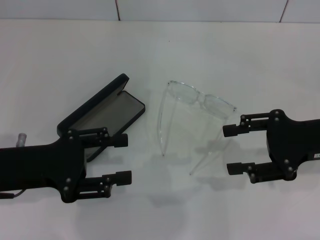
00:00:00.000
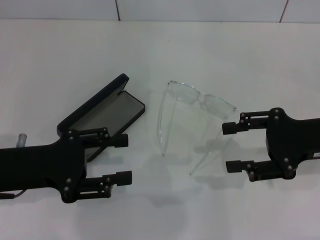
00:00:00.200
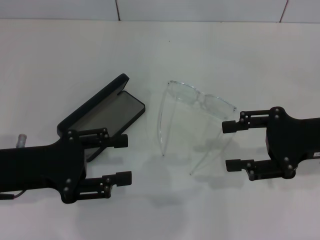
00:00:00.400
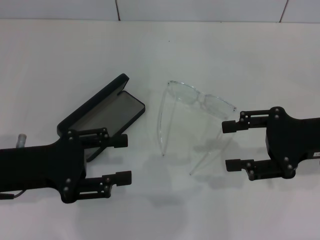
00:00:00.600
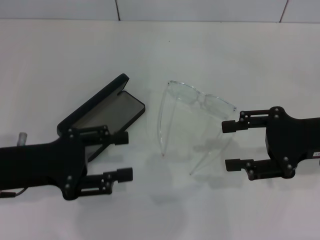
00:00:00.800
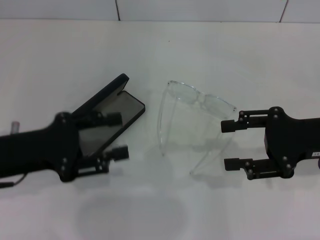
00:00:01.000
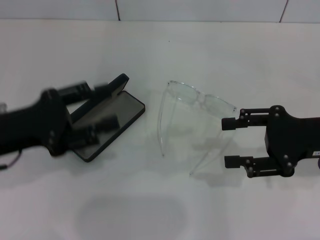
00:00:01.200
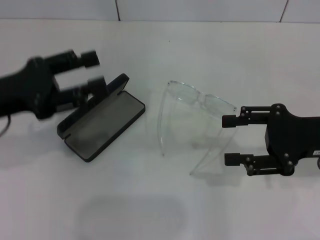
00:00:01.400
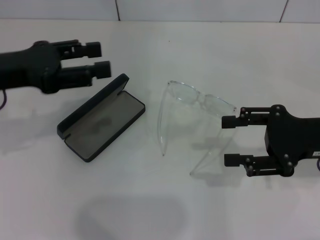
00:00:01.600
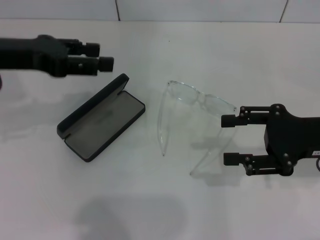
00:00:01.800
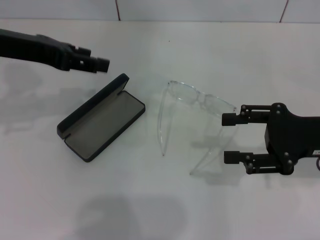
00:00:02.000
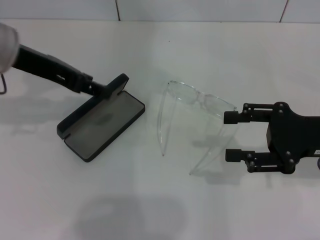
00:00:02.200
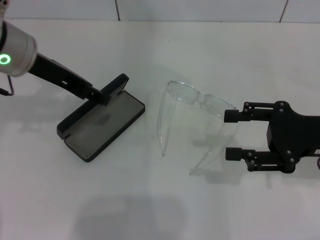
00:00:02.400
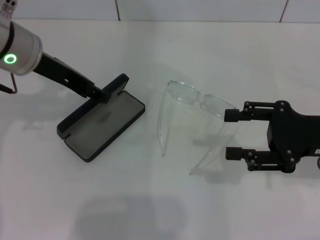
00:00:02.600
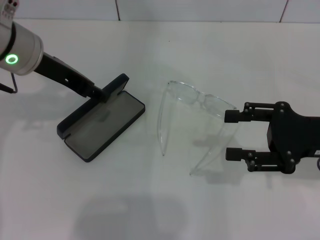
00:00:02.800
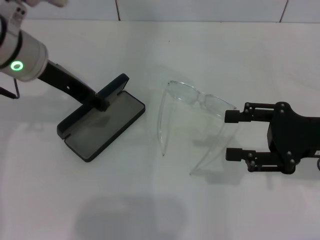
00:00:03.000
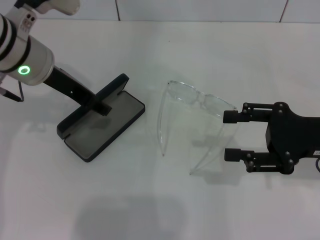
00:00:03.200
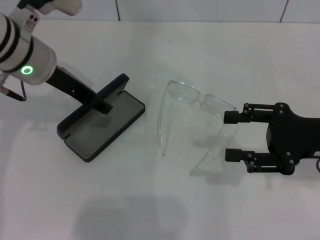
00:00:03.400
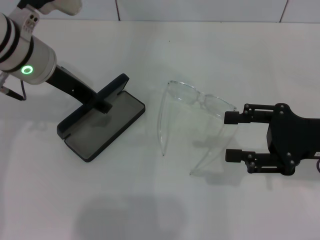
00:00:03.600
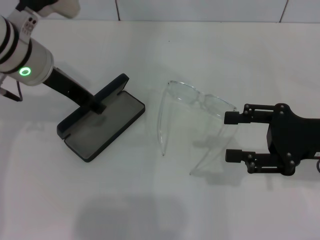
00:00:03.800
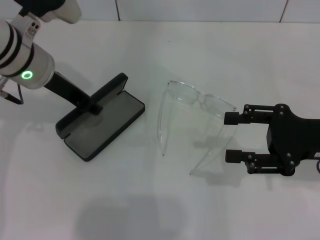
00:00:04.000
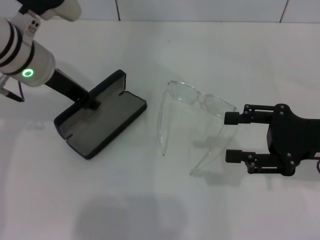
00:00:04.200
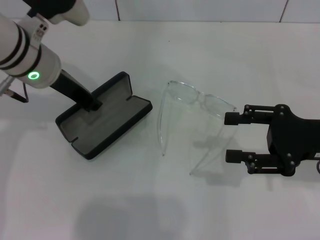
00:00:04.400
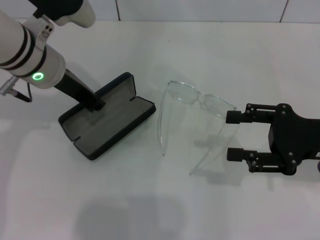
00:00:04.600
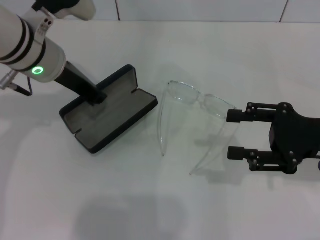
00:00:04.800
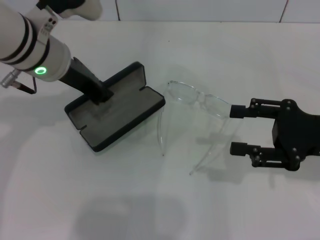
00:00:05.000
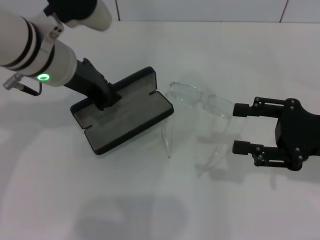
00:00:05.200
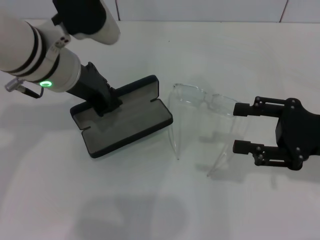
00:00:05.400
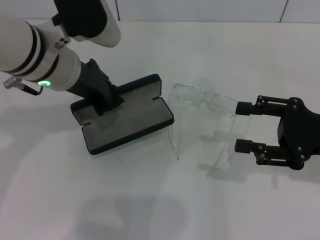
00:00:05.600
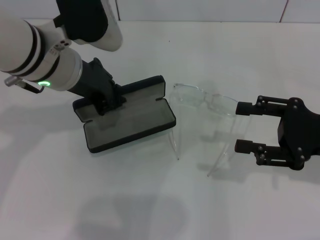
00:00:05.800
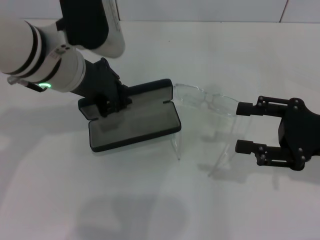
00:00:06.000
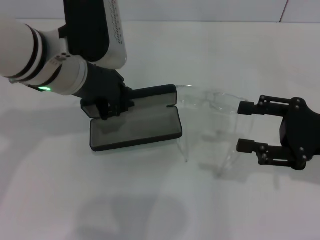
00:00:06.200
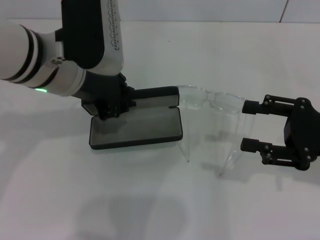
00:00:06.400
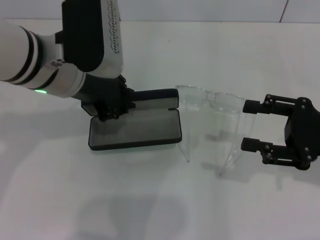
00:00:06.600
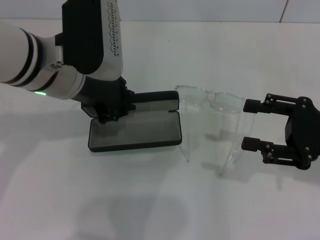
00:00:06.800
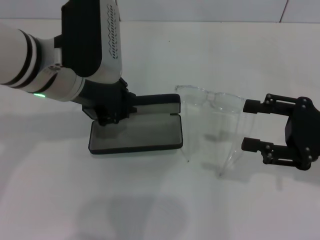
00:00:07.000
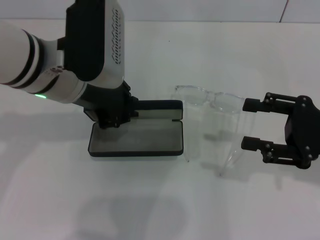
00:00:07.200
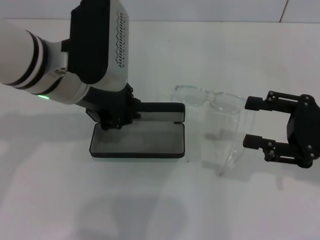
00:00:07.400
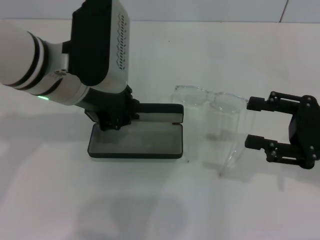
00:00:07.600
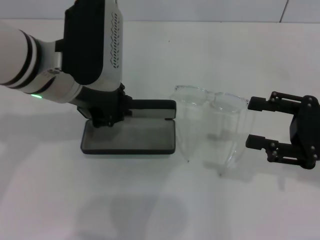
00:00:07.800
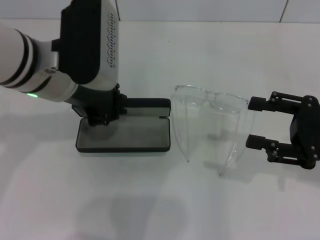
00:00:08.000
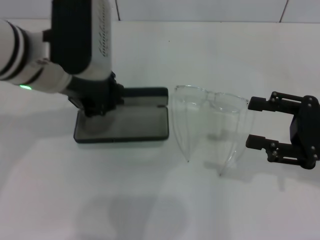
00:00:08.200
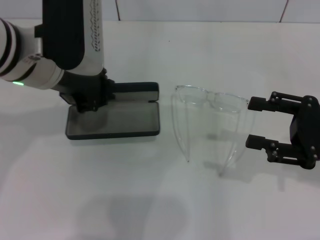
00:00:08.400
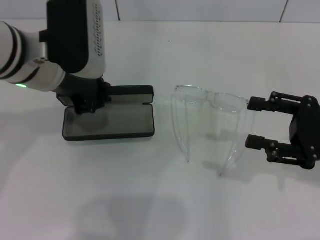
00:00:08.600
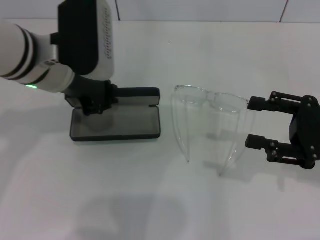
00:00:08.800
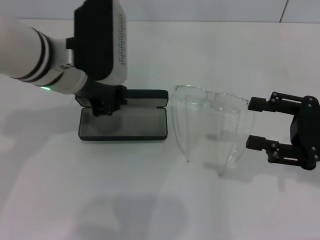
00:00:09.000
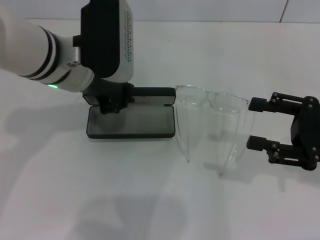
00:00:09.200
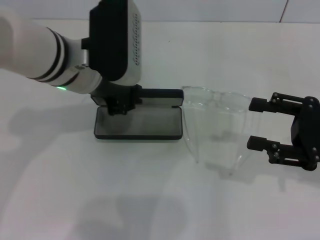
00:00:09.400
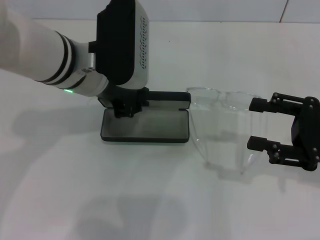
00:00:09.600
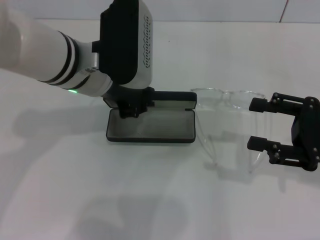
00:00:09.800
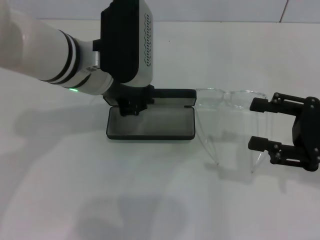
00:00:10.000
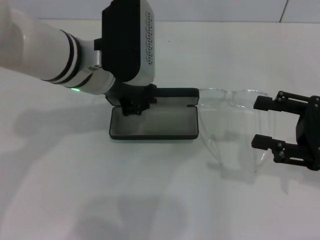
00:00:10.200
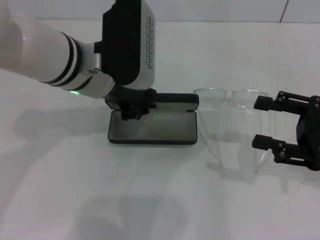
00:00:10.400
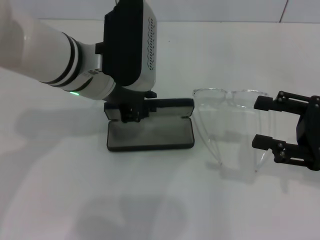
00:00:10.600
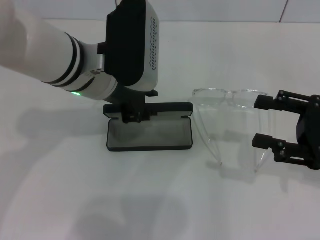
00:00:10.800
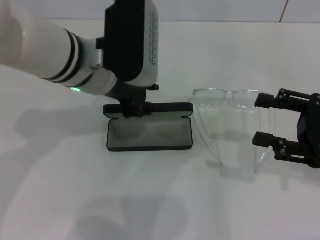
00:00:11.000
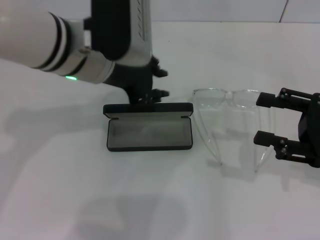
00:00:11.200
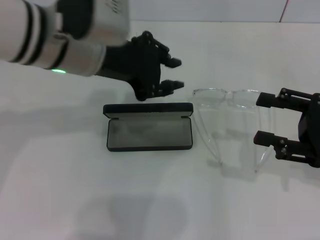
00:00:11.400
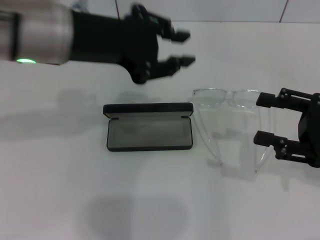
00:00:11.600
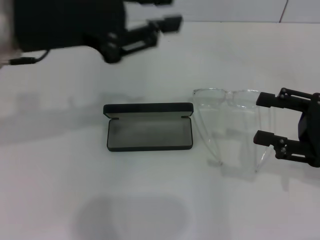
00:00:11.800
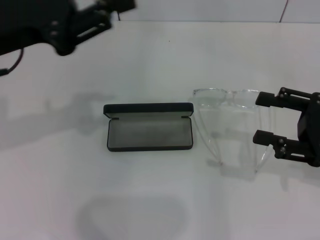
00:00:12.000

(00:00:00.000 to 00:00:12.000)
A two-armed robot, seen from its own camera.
Step, 00:00:00.000 - 00:00:04.400: Grab the glasses case with your left hand.
Step, 00:00:04.600 - 00:00:10.600: Place the glasses case in the center of the table with your left hand.
00:00:00.000 - 00:00:01.600: The left gripper is displaced upward and forward by about 10 cm.
00:00:01.600 - 00:00:03.000: The left gripper travels to the right and forward by approximately 10 cm.
00:00:03.000 - 00:00:04.400: The left gripper closes.
00:00:04.400 - 00:00:06.000: The left gripper changes place by some 5 cm.
00:00:06.000 - 00:00:10.400: The grippers stay close to where they were, moving slightly.
00:00:10.400 - 00:00:12.000: The left gripper moves to the left, some 15 cm.

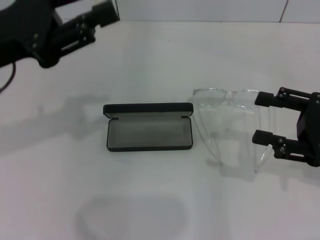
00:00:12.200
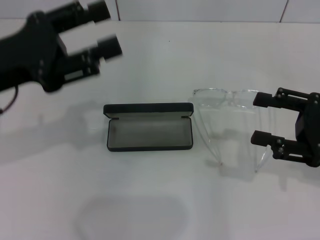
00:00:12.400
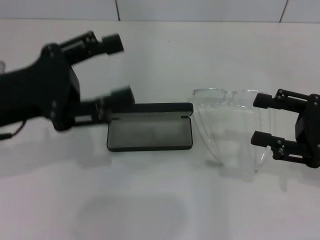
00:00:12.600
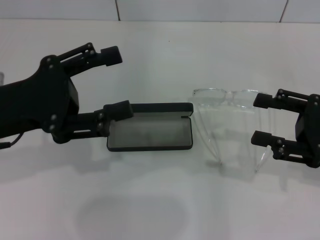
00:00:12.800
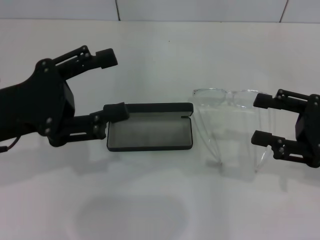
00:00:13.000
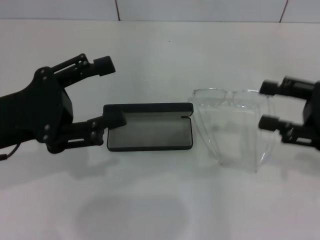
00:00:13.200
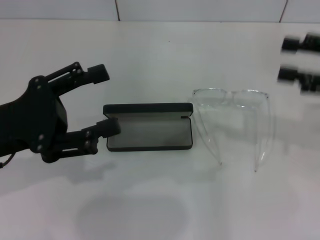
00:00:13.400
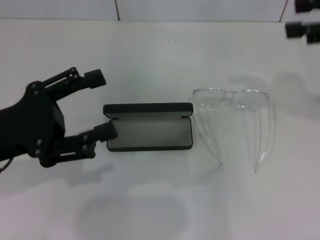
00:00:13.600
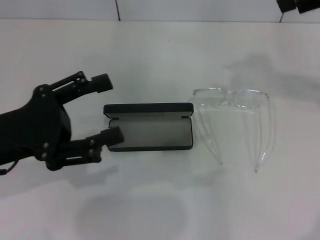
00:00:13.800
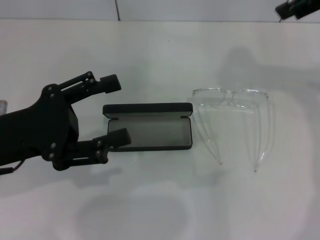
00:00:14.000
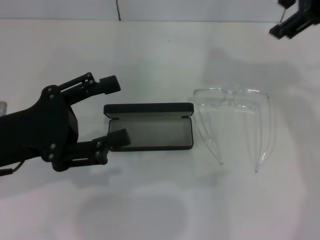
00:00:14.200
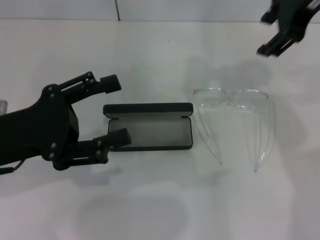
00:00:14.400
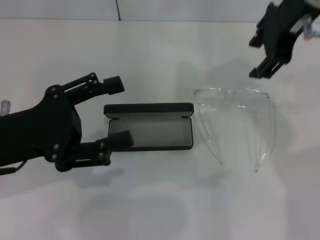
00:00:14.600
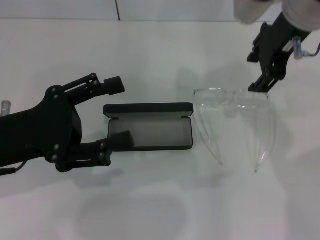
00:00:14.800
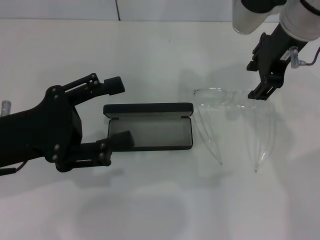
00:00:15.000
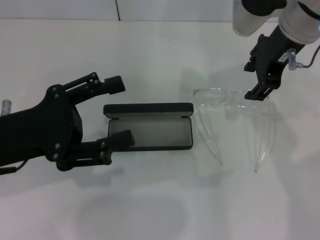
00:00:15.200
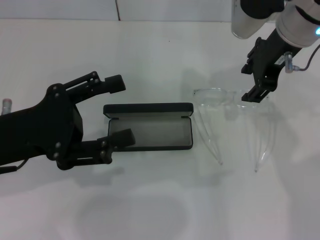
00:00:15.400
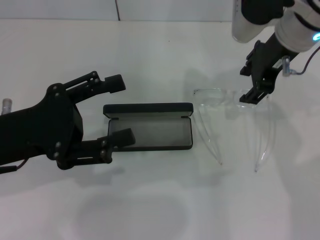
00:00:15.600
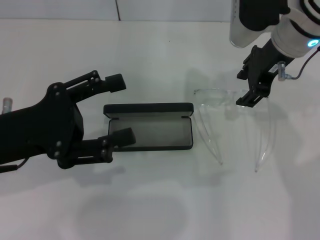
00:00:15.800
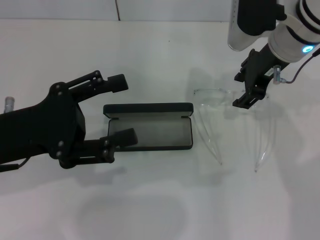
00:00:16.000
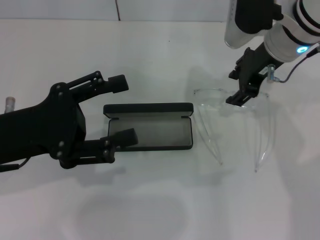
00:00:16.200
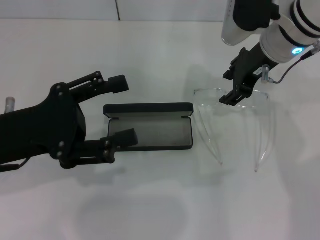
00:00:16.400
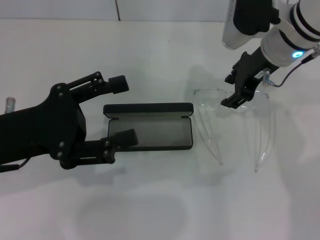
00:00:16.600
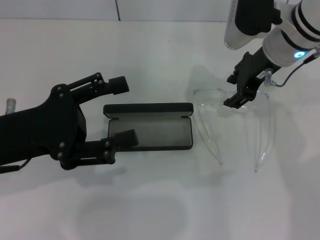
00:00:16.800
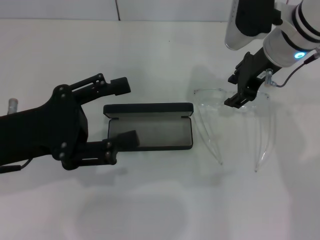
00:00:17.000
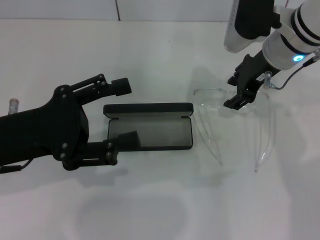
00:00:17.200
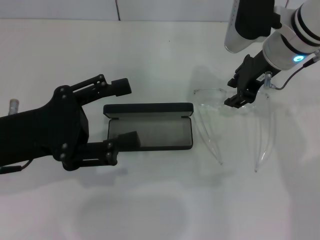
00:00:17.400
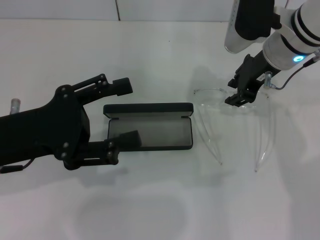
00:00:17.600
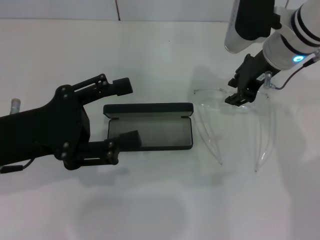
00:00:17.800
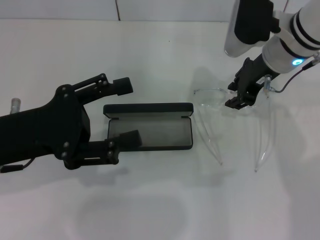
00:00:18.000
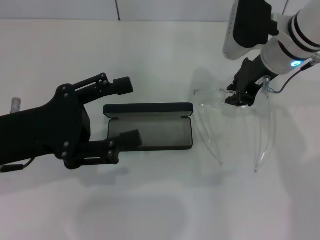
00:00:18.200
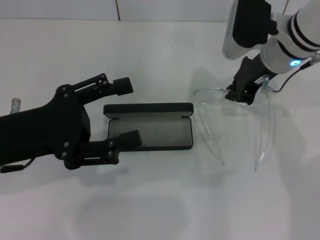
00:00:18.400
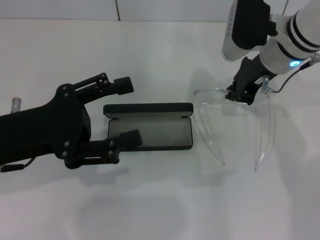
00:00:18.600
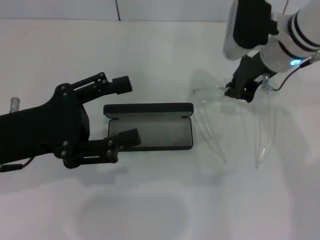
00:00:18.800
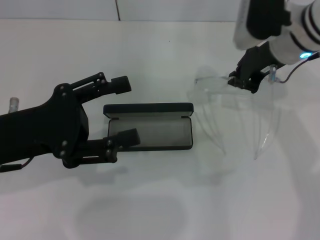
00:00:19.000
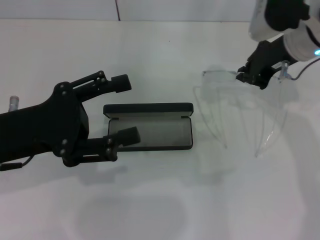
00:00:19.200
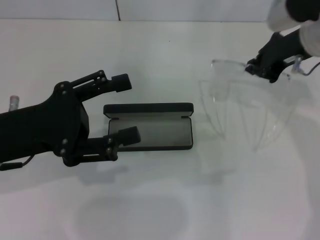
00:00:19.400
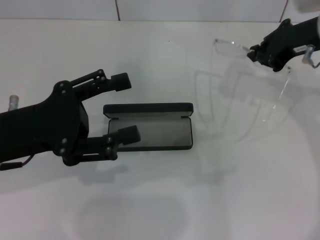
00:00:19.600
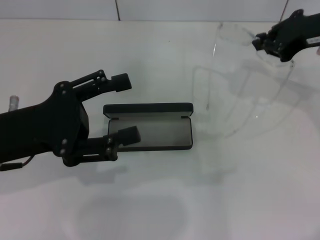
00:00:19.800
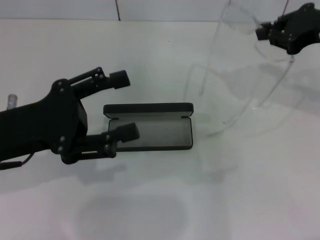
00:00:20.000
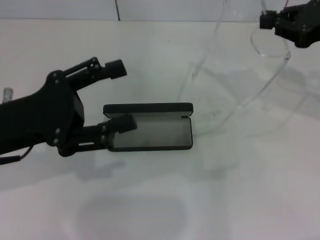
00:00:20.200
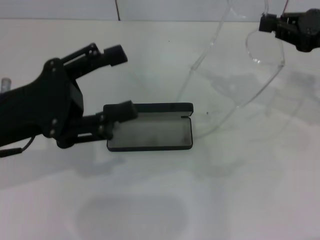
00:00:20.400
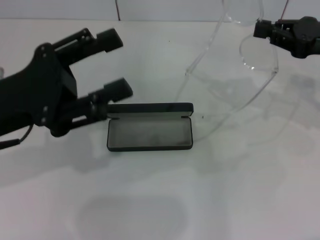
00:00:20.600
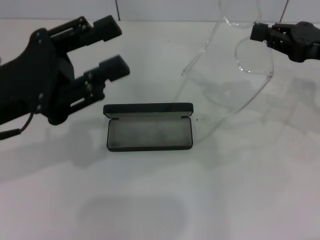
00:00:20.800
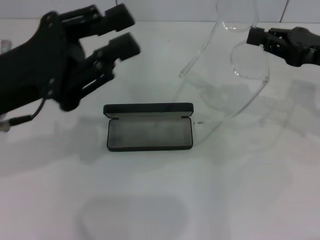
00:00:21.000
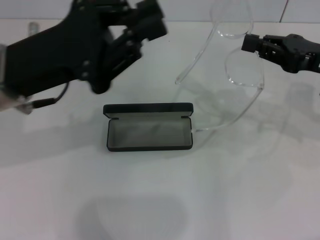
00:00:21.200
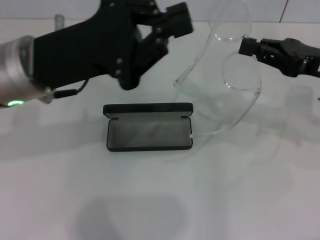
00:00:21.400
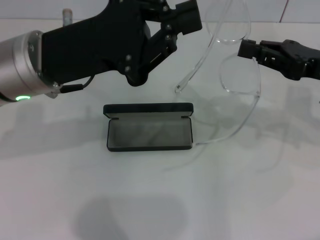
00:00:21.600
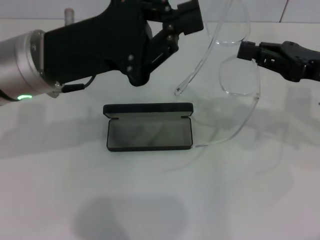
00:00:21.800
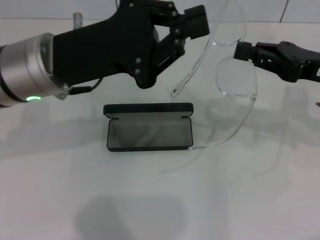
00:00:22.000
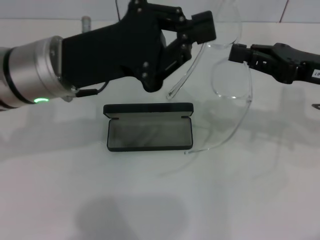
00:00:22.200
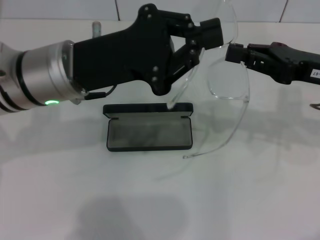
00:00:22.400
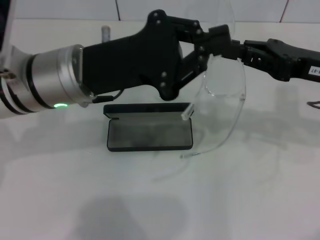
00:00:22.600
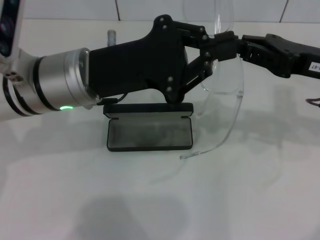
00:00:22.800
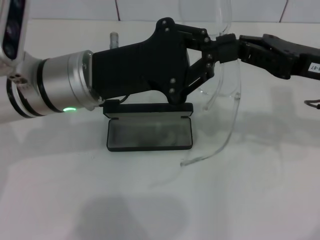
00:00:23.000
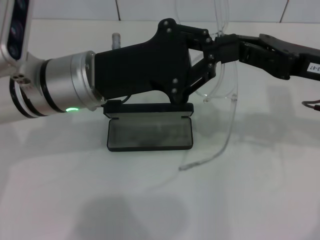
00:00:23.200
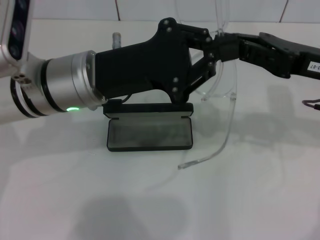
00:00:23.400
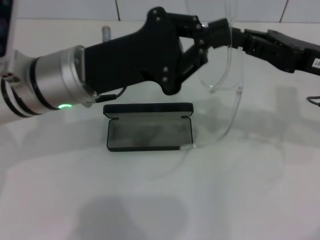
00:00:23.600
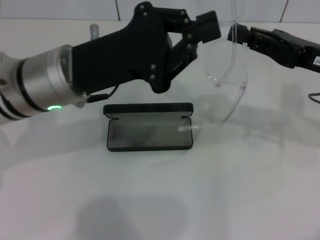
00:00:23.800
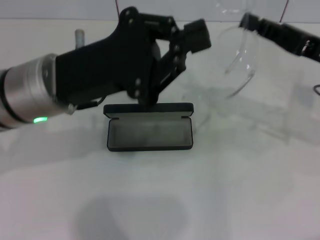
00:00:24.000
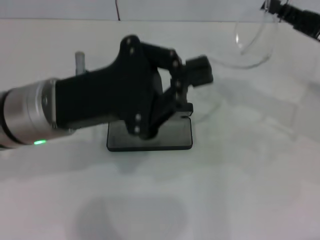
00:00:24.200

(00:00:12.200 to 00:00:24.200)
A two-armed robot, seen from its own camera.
Step, 00:00:12.200 - 00:00:18.600: Grab the eyeglass frame with your right hand.
00:00:12.200 - 00:00:13.800: The right gripper shifts roughly 25 cm upward and forward. Meanwhile the left gripper goes some 10 cm downward and backward, and opens.
00:00:13.800 - 00:00:15.200: The right gripper moves to the left and downward, approximately 15 cm.
00:00:15.200 - 00:00:16.600: The right gripper is displaced downward by about 5 cm.
00:00:16.600 - 00:00:18.200: The right gripper closes its fingers.
00:00:18.200 - 00:00:19.800: The right gripper travels to the right and upward by roughly 10 cm, and closes up.
00:00:19.800 - 00:00:21.200: The left gripper moves approximately 5 cm, and closes its fingers. The right gripper shifts approximately 5 cm downward.
00:00:21.200 - 00:00:22.600: The left gripper heads to the right, covering approximately 5 cm, and closes up.
